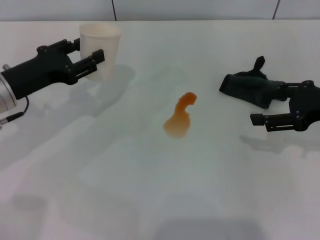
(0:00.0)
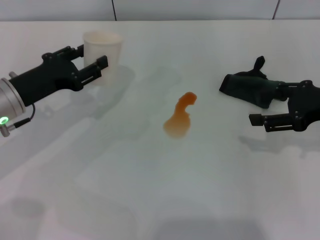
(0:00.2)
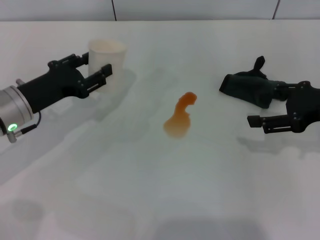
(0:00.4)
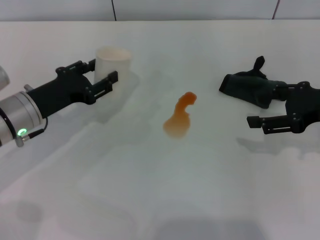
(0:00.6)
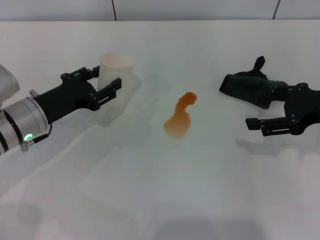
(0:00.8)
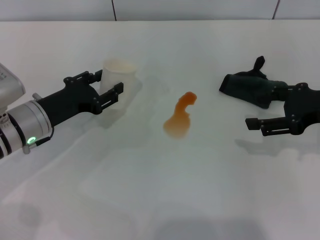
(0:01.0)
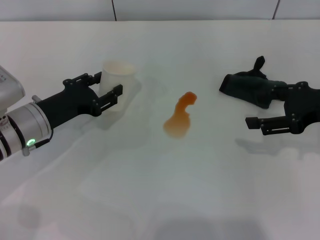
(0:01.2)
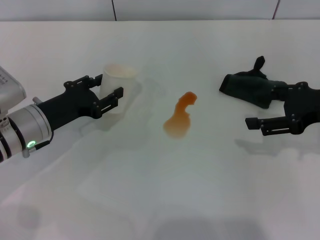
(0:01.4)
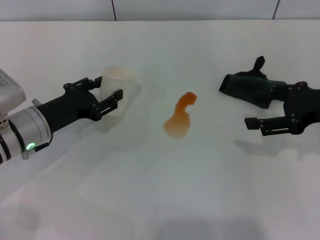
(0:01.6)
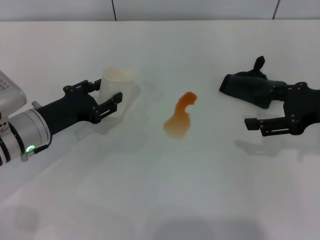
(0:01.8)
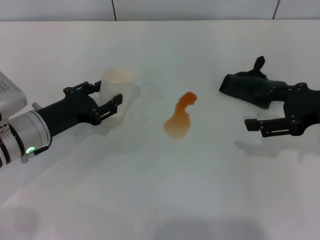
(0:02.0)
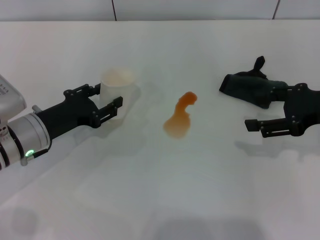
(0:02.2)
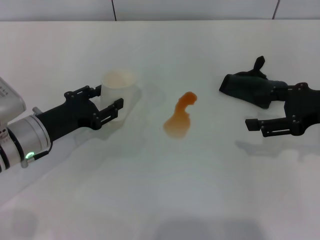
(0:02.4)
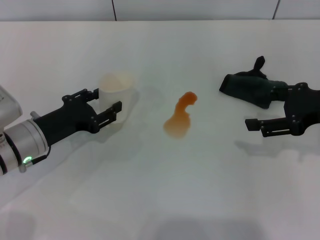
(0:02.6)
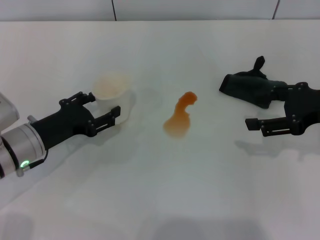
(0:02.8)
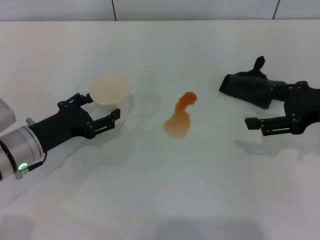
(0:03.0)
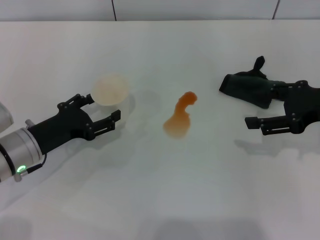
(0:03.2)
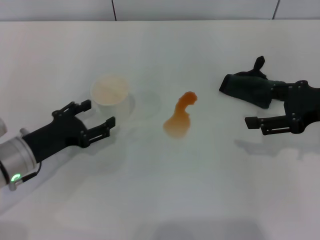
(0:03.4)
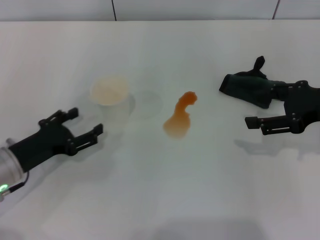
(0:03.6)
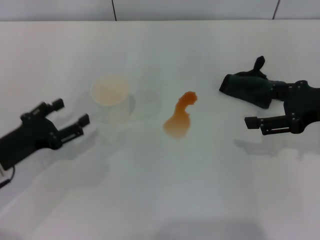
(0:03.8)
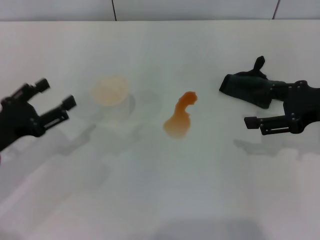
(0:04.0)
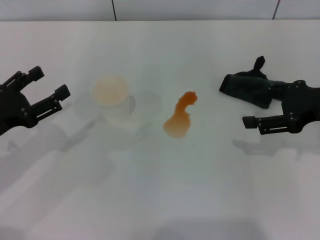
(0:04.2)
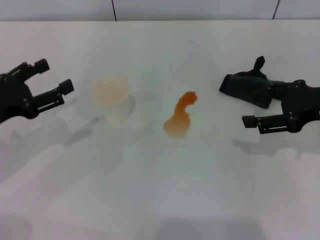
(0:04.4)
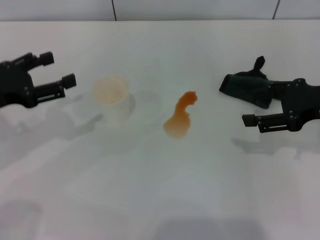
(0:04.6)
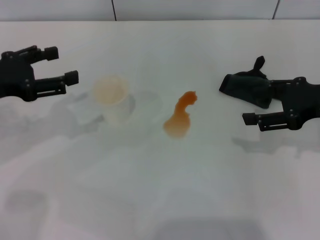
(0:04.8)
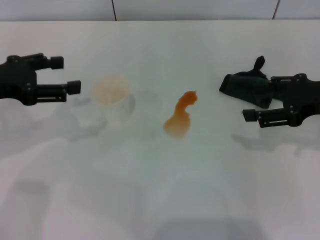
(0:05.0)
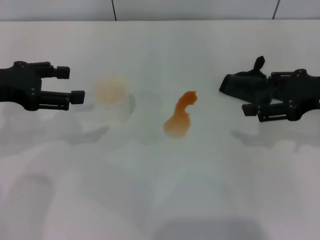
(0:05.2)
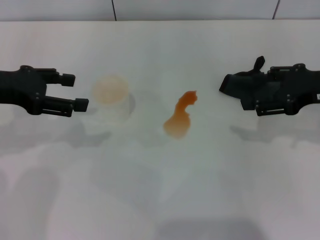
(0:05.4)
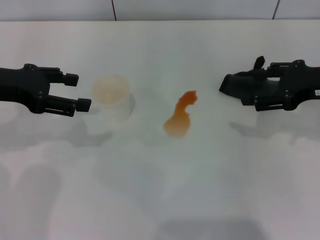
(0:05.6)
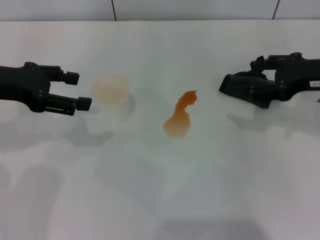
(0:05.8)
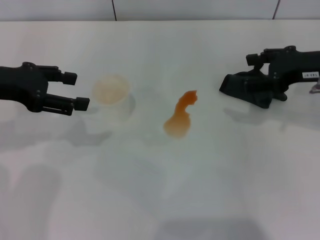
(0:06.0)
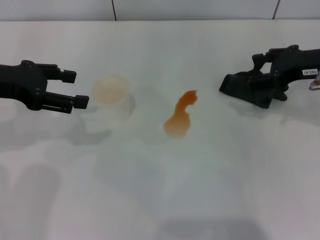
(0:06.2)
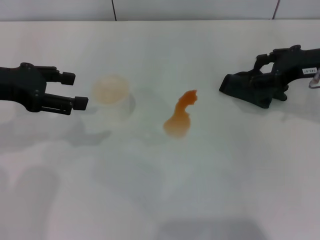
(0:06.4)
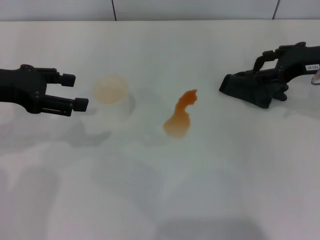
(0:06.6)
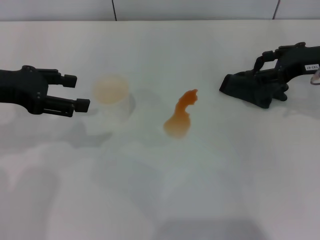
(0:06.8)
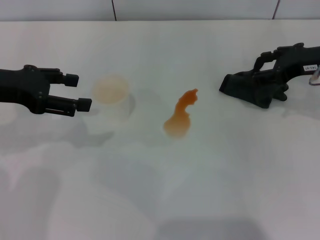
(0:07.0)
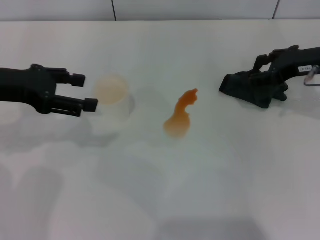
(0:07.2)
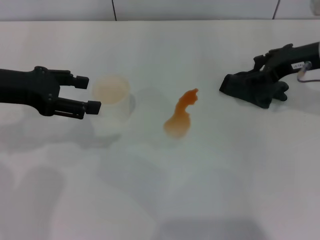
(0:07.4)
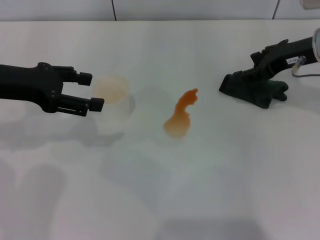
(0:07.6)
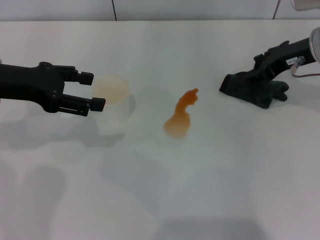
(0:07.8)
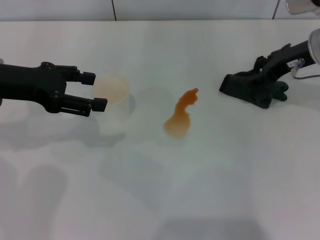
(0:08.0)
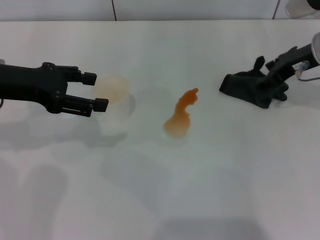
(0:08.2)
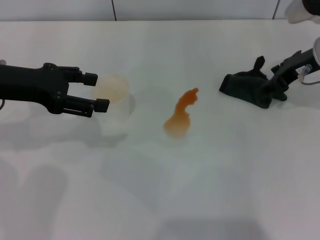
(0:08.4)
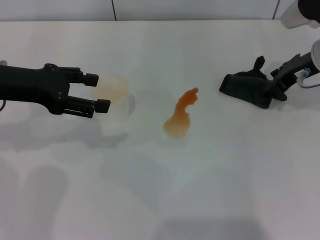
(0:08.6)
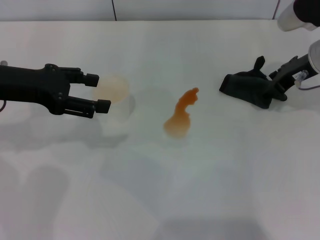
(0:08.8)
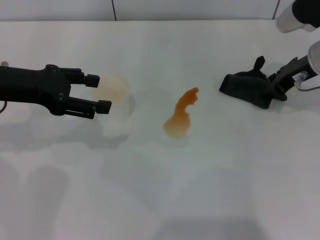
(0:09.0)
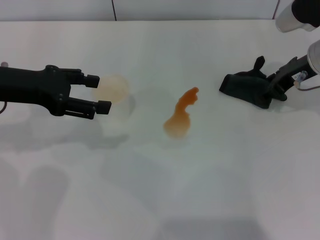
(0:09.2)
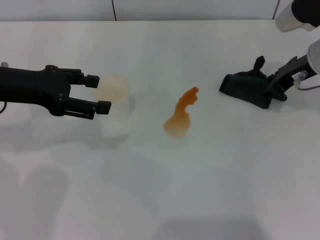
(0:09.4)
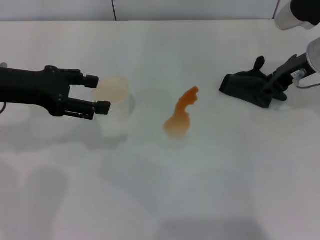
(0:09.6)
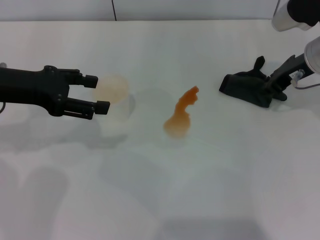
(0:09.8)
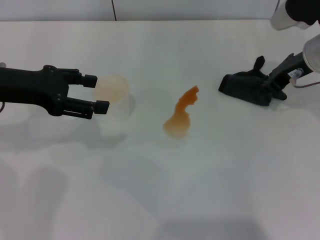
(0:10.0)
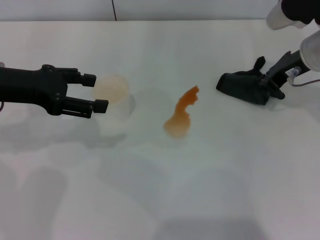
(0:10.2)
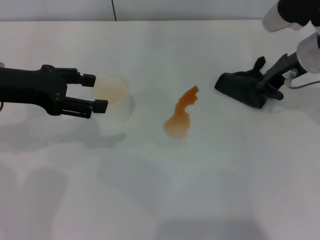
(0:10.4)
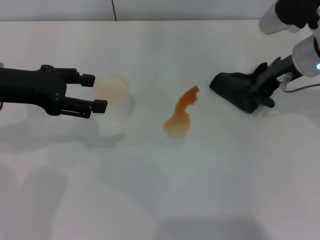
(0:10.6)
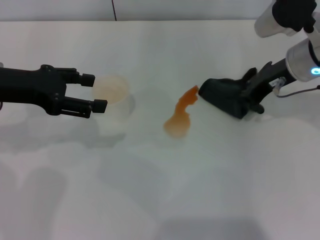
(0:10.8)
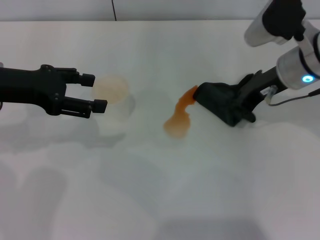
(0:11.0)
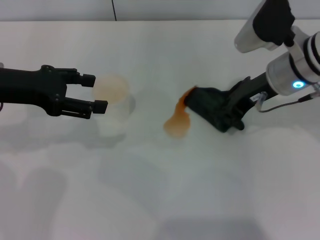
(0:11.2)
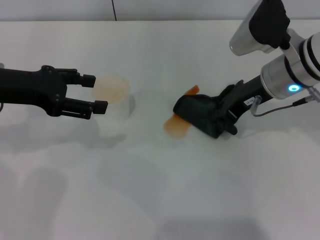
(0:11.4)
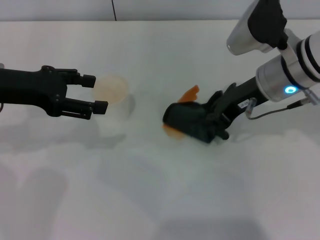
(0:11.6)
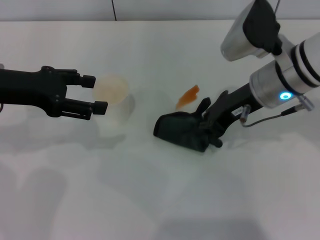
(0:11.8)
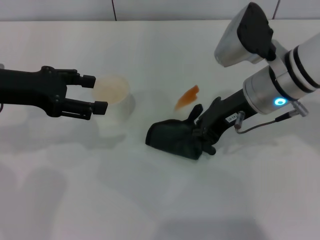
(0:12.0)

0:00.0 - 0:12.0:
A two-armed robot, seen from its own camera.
Step, 0:00.0 - 0:03.6: Stand the paper cup upright with the left gripper.
Step, 0:03.8 - 0:10.4: Grasp the rag with the right gripper.
0:00.0 - 0:01.6: The left gripper is displaced downward by roughly 5 cm.
0:01.6 - 0:03.0: The left gripper opens up.
0:03.0 - 0:04.4: The left gripper moves to the left and upward, some 10 cm.
0:04.4 - 0:06.0: The left gripper is displaced upward and forward by about 10 cm.
0:06.0 - 0:07.6: The right gripper moves forward, about 5 cm.
0:07.6 - 0:09.0: The grippers move only a little.
0:09.0 - 0:10.4: The right gripper closes its fingers.
0:10.4 - 0:12.0: The right gripper goes about 10 cm to the left and backward.

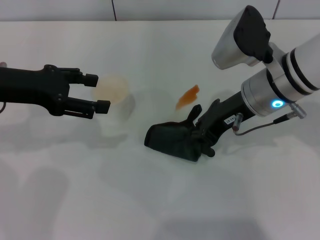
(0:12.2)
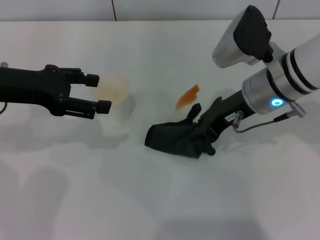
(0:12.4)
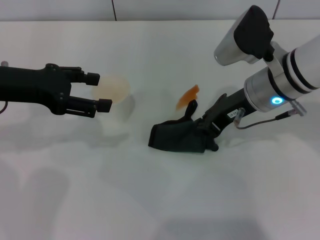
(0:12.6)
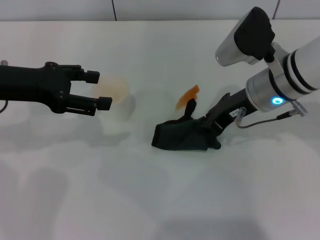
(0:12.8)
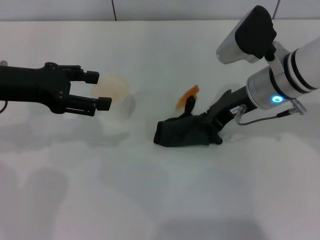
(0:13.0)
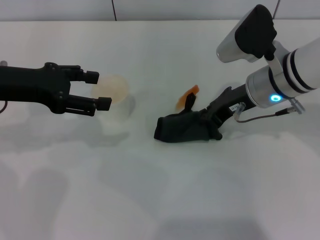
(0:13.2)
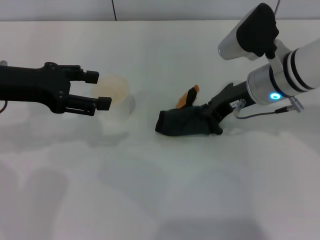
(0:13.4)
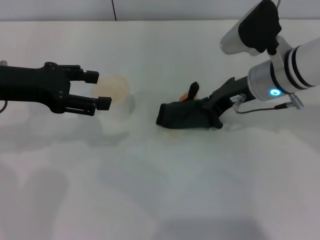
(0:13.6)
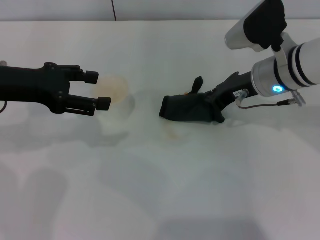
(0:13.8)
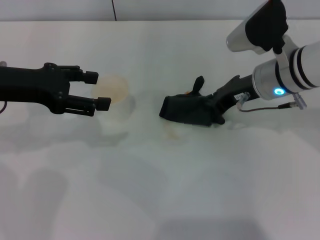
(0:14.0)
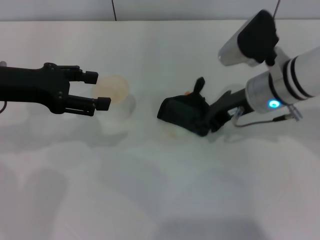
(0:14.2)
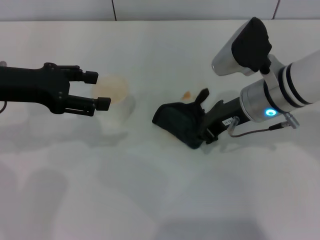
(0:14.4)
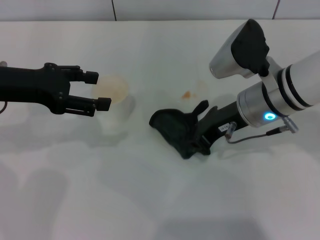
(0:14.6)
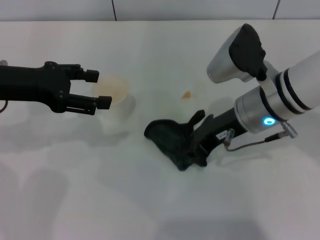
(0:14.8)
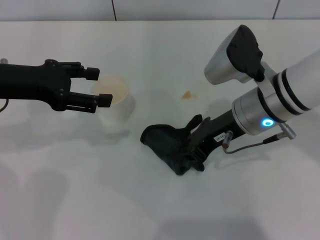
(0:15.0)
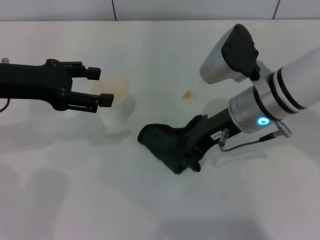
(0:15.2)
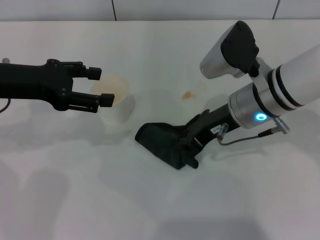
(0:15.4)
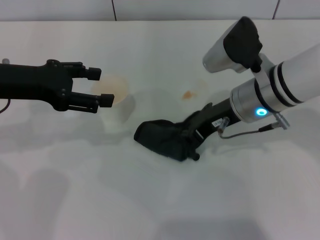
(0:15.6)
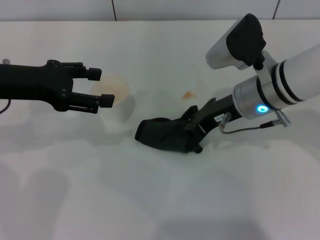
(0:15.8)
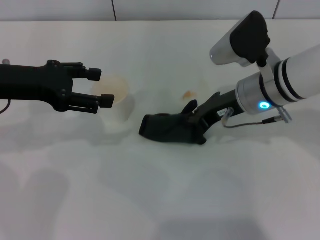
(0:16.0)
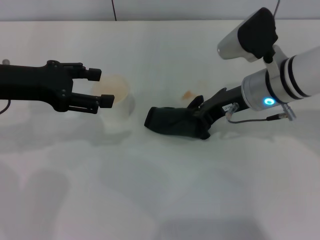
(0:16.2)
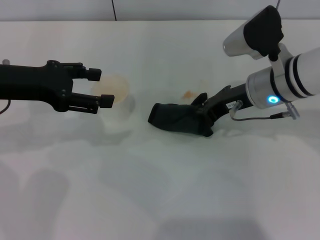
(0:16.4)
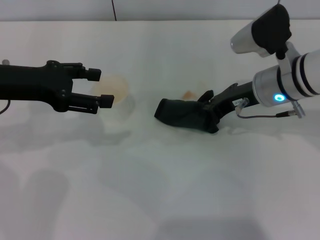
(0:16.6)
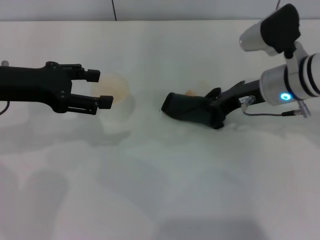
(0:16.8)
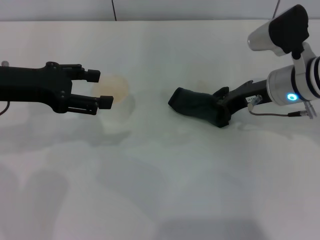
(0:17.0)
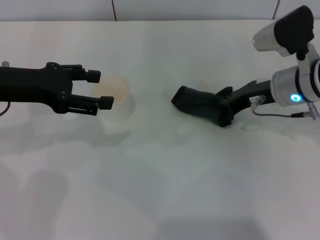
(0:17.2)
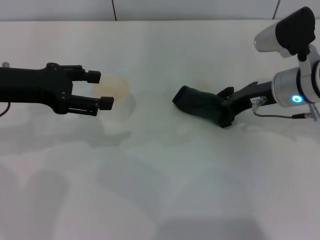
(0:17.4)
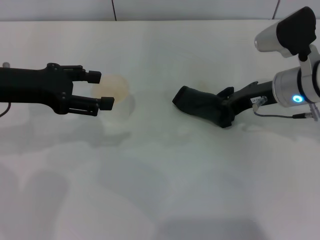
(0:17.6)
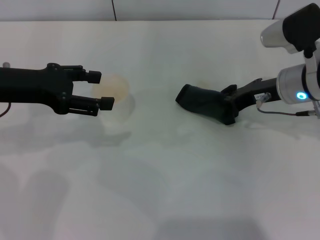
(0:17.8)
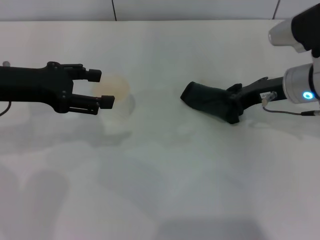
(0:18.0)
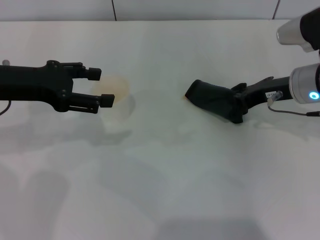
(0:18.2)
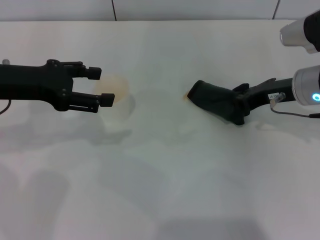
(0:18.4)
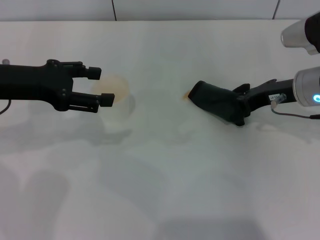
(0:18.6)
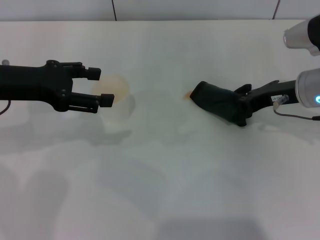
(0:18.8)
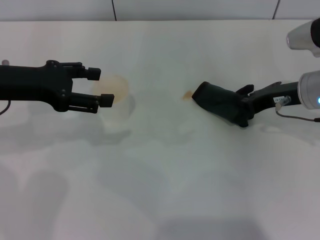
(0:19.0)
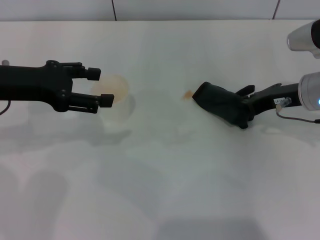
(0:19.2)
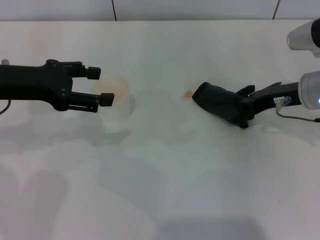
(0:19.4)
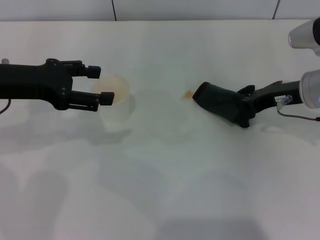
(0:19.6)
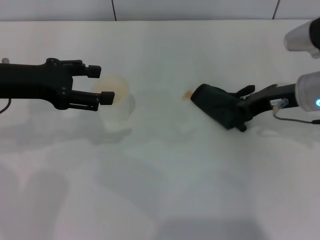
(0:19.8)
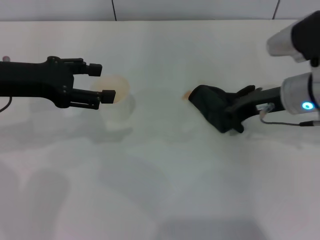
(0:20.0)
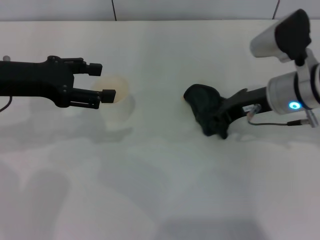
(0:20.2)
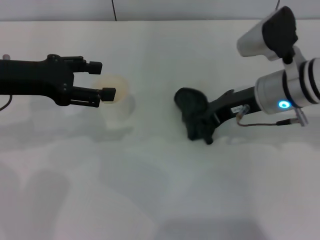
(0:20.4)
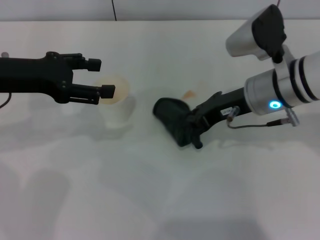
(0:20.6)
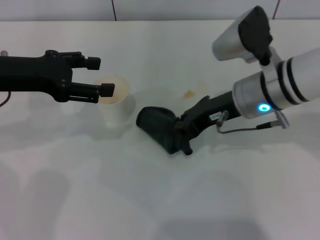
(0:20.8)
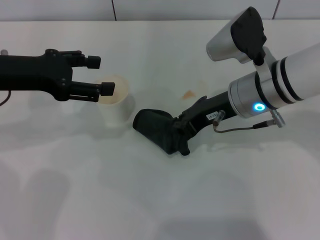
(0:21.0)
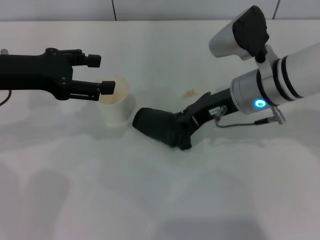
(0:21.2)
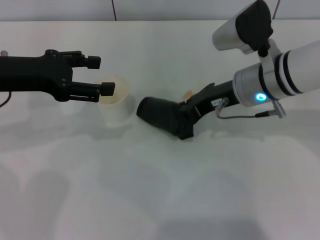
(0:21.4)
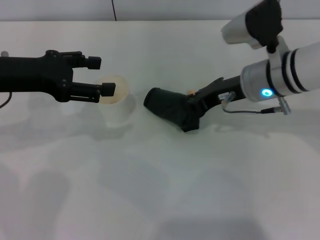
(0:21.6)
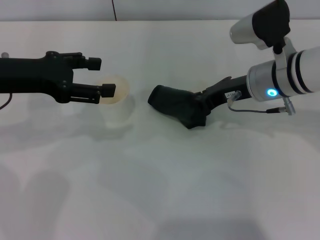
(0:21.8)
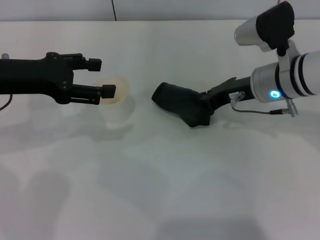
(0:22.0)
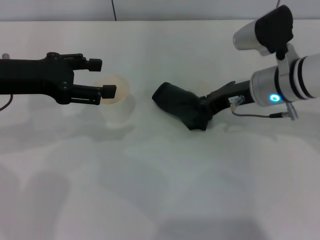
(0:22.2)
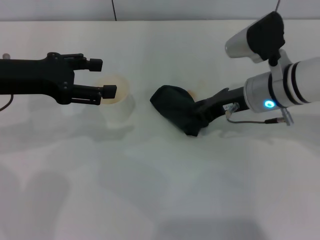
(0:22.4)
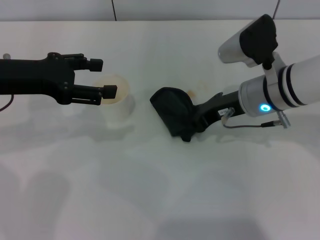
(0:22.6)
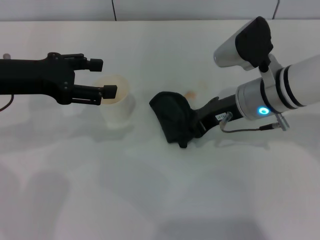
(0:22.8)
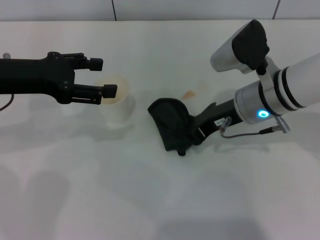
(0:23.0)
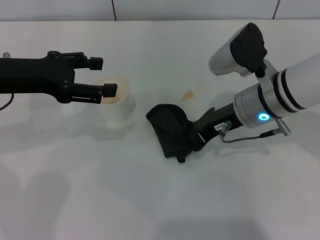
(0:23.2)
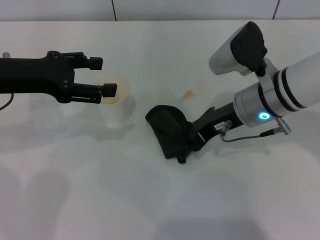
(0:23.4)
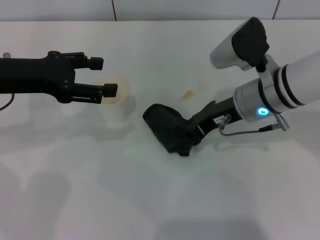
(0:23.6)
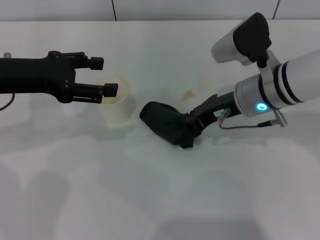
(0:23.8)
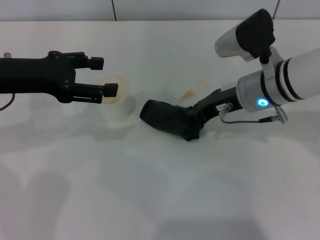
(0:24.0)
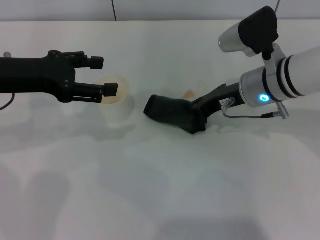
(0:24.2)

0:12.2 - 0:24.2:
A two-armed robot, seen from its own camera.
0:12.2 - 0:13.8: The grippers make only small movements.
0:13.8 - 0:15.2: The right gripper changes place by roughly 5 cm.
0:15.2 - 0:16.6: The right gripper moves approximately 5 cm.
0:16.6 - 0:18.2: The right gripper heads to the right, covering roughly 5 cm.
0:18.2 - 0:19.8: The grippers stay close to where they were, moving slightly.
0:19.8 - 0:21.2: The right gripper heads to the left, covering approximately 10 cm.
0:21.2 - 0:24.2: The grippers stay close to where they were, moving slightly.
